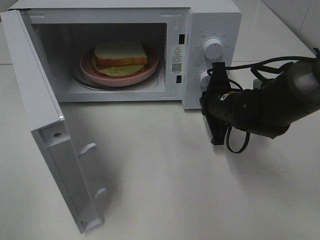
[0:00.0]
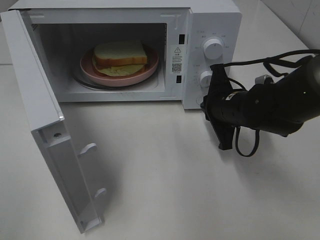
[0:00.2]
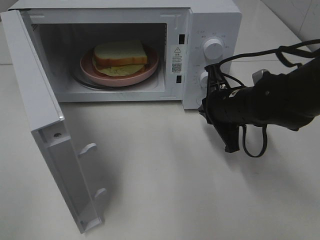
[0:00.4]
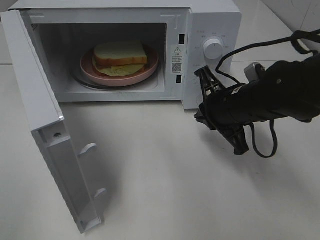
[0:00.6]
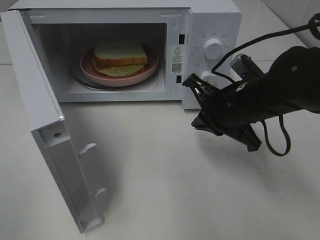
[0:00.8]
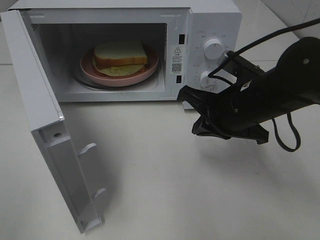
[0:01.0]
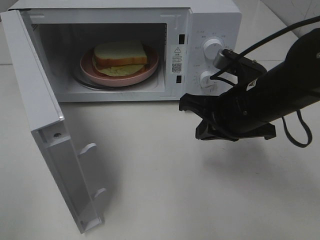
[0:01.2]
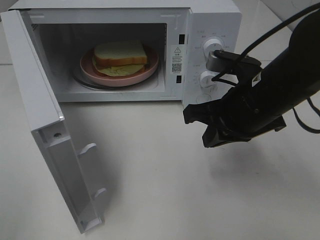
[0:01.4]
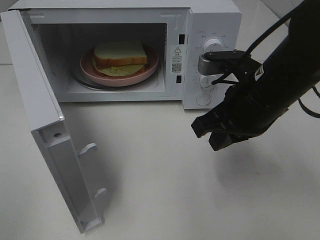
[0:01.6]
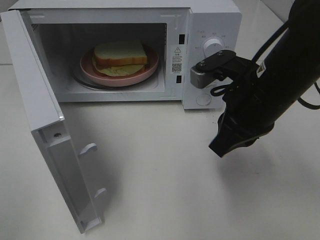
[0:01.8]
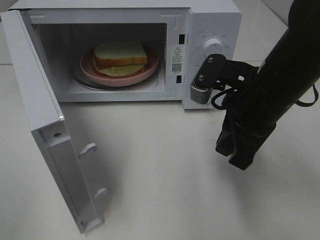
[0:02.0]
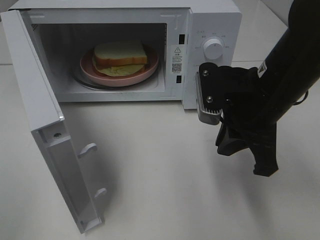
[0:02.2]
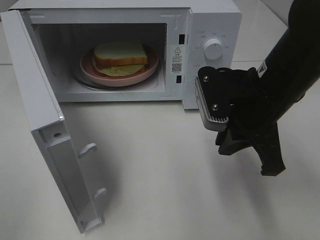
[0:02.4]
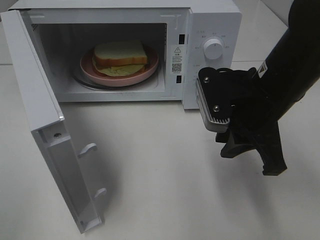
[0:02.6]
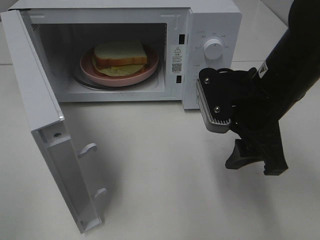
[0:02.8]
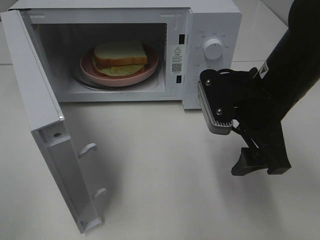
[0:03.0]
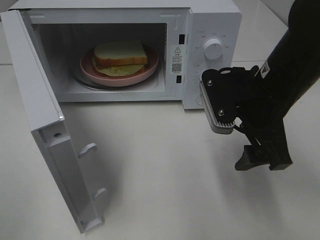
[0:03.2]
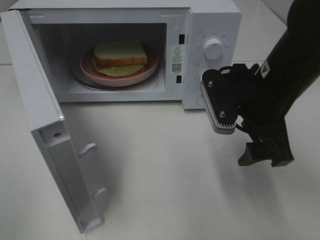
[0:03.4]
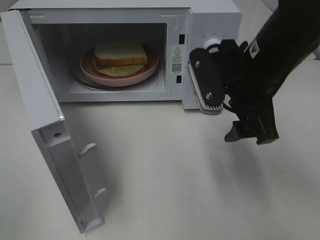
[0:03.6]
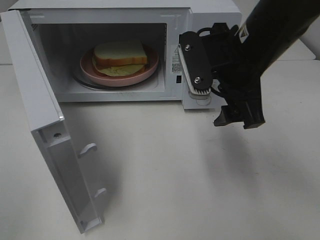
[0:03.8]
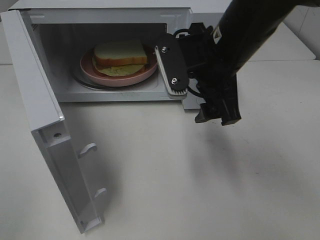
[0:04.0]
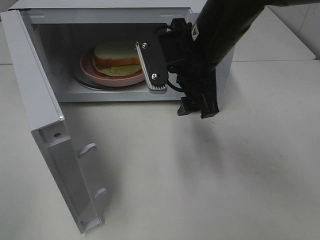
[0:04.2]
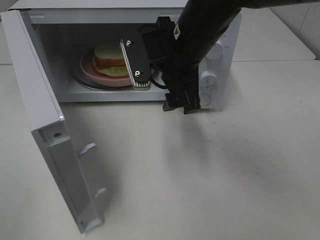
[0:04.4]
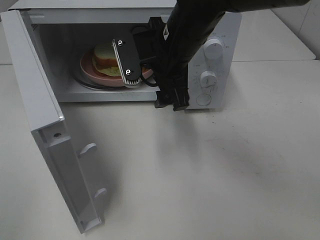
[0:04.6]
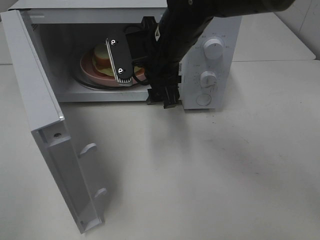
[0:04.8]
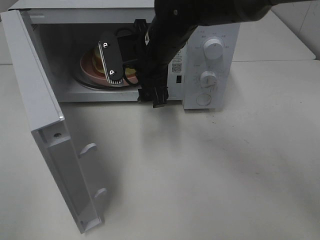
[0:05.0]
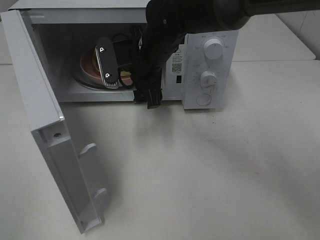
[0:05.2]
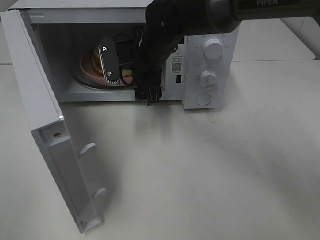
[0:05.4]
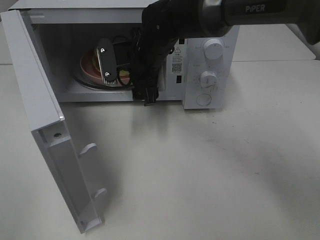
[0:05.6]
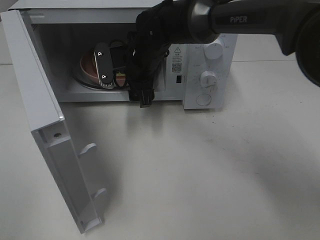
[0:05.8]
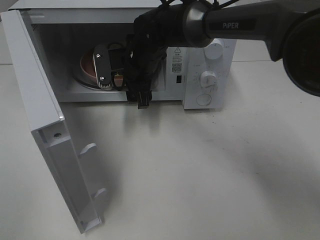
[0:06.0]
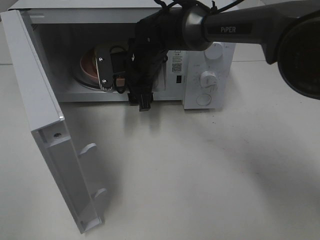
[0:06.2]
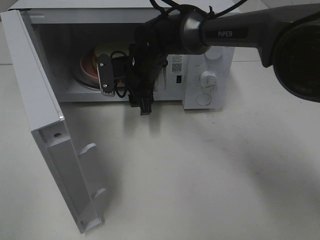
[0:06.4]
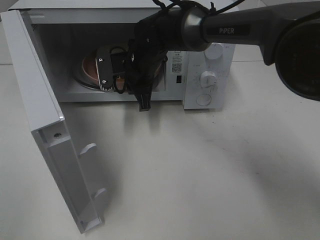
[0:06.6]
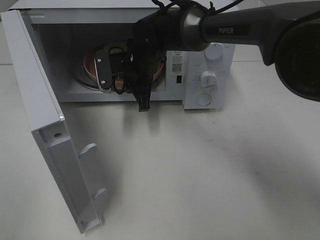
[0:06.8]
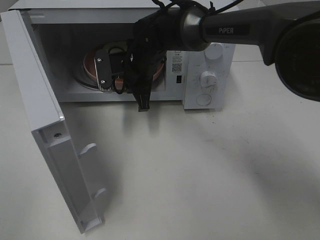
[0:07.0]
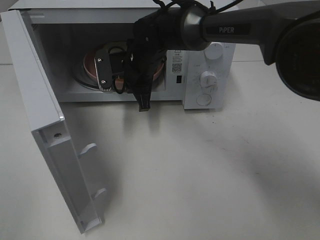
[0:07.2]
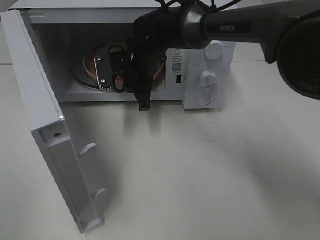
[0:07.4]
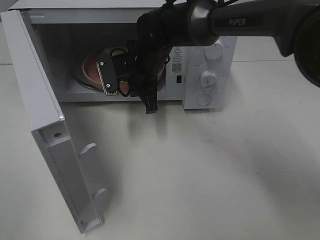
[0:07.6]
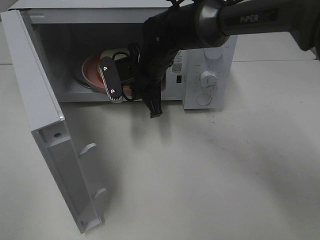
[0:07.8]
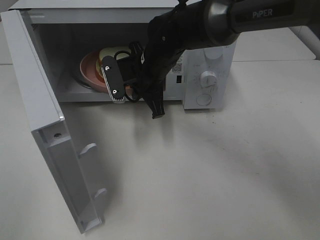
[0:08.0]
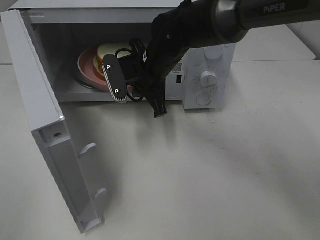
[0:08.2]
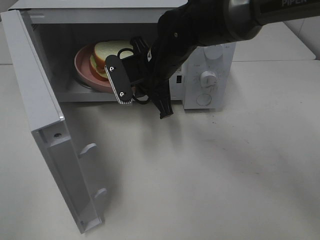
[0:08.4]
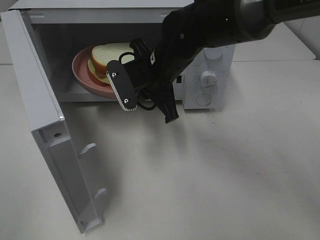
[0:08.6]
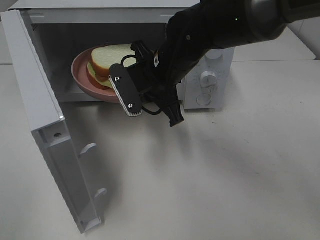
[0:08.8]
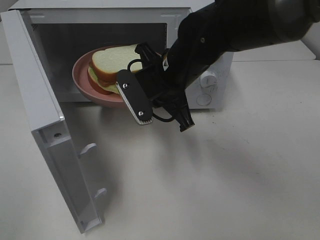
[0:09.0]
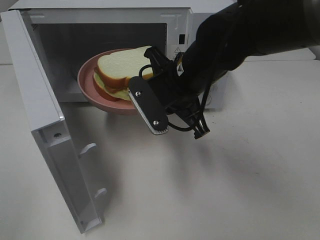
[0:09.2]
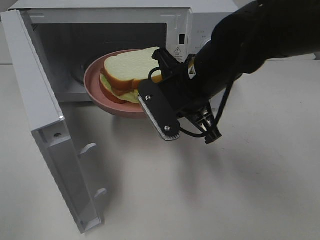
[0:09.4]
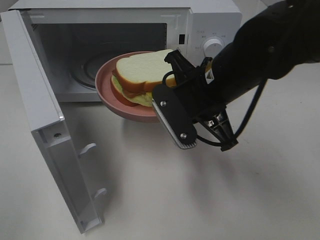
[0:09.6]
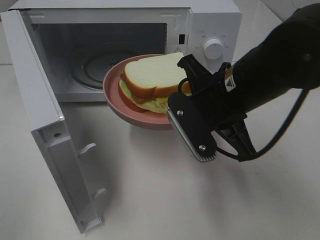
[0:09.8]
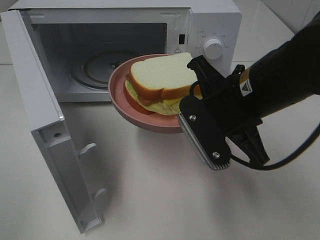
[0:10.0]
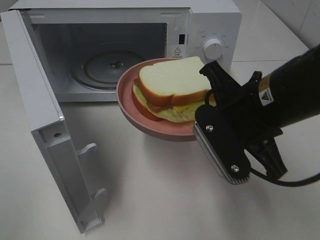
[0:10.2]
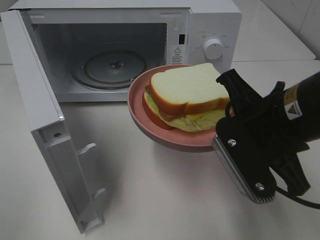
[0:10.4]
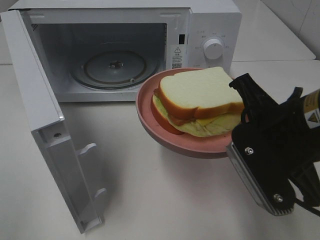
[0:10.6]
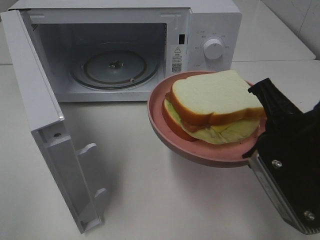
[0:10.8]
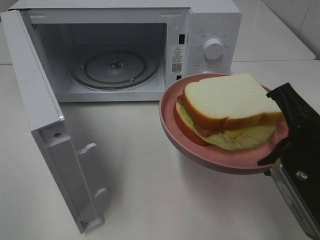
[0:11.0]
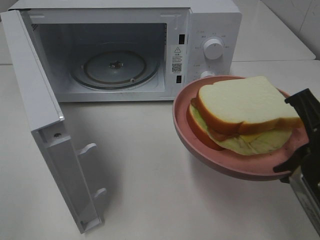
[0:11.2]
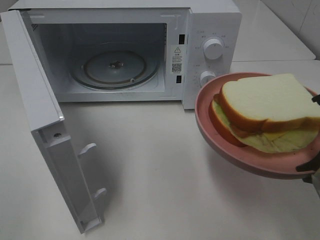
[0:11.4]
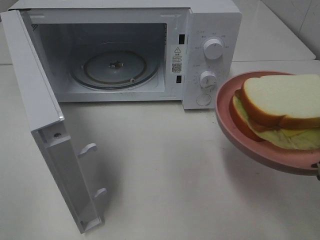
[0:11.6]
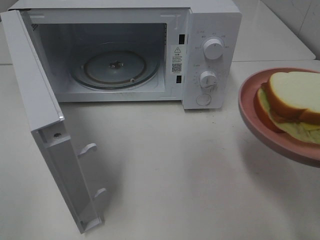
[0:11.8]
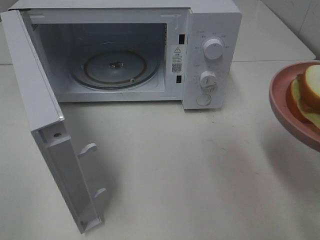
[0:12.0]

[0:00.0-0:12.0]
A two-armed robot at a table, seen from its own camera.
Task of the whole recording: Heat Sandwich.
Step, 0:00.0 to 0:07.2: Right hand: grab the plate with the sandwich.
0:00.0 to 0:01.6: The right gripper shifts some 15 cm upward and backward.
0:01.6 to 0:03.0: The right gripper opens up.
0:03.0 to 0:04.4: The right gripper goes about 15 cm to the left and forward.
0:04.4 to 0:06.0: The right gripper moves forward, downward and to the left, approximately 15 cm.
0:06.0 to 0:07.6: The right gripper closes its fingers.
0:07.6 to 0:09.0: The right gripper heads backward, covering about 10 cm.
0:09.0 to 0:10.4: The right gripper heads backward and to the right, covering approximately 15 cm.
0:10.4 to 0:12.0: The right gripper goes some 10 cm to the right and backward.

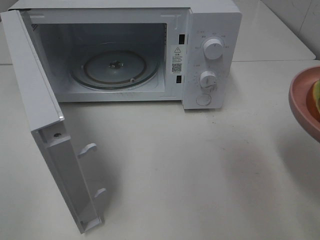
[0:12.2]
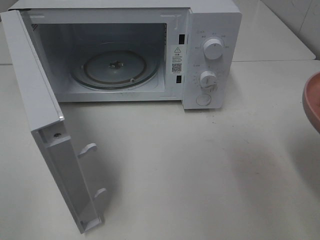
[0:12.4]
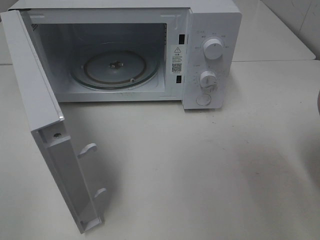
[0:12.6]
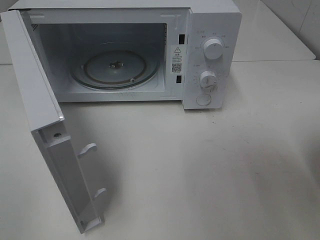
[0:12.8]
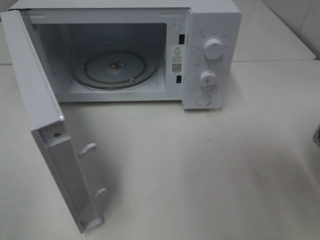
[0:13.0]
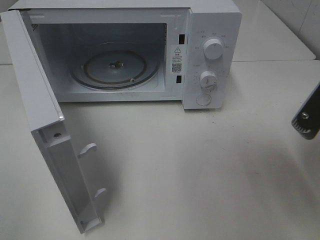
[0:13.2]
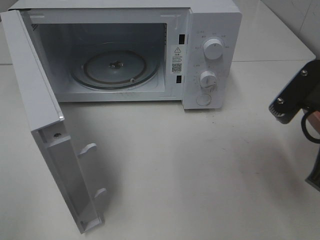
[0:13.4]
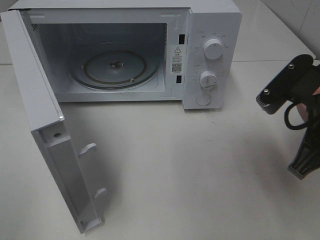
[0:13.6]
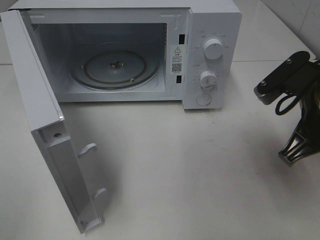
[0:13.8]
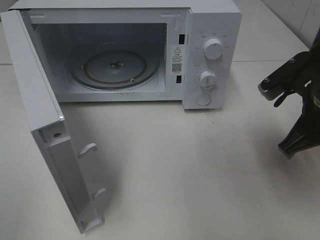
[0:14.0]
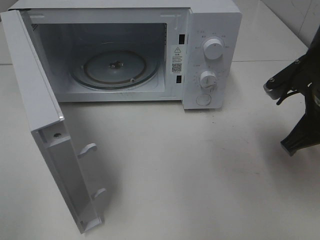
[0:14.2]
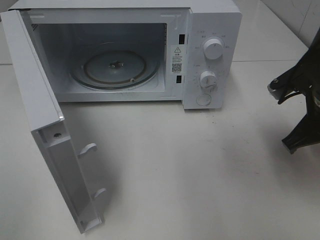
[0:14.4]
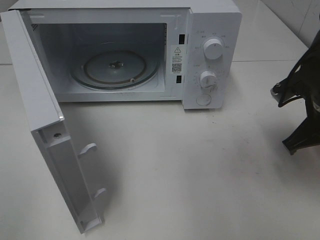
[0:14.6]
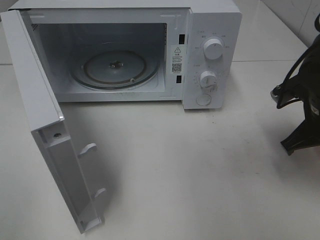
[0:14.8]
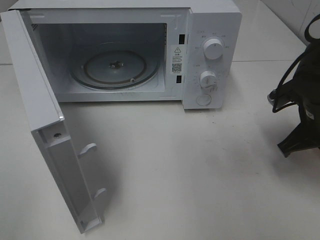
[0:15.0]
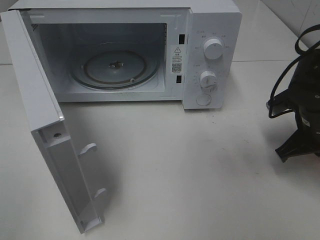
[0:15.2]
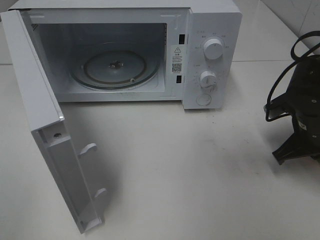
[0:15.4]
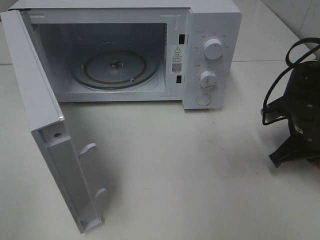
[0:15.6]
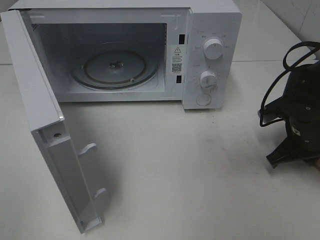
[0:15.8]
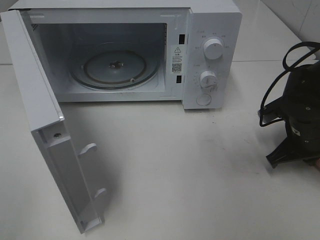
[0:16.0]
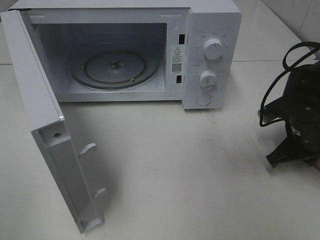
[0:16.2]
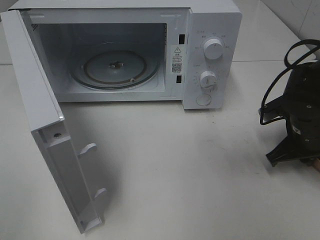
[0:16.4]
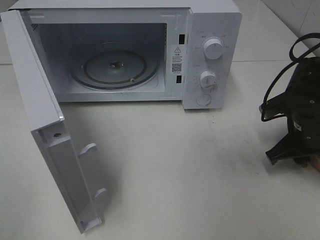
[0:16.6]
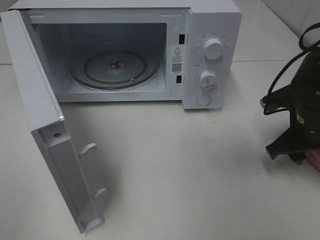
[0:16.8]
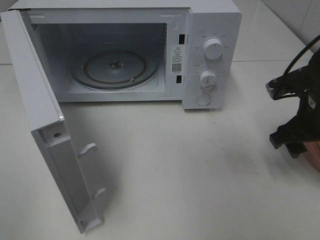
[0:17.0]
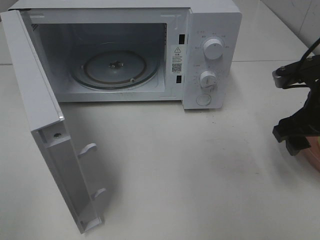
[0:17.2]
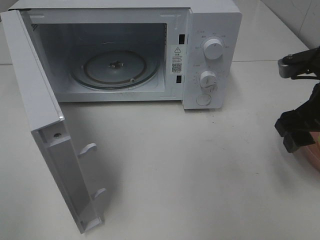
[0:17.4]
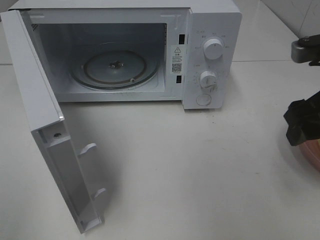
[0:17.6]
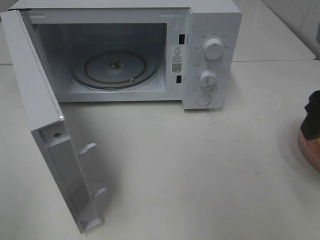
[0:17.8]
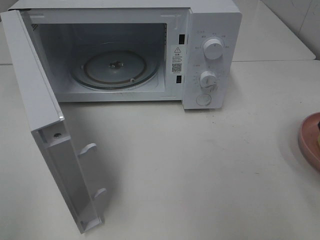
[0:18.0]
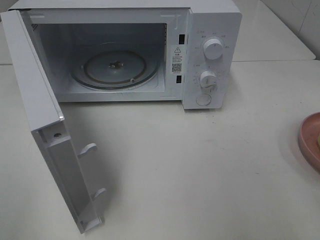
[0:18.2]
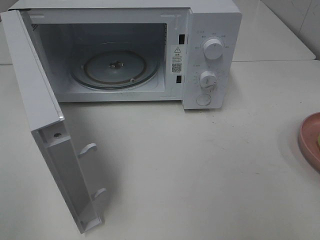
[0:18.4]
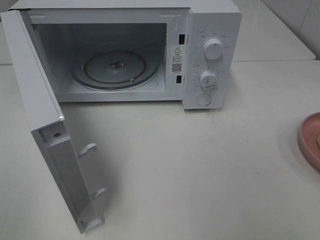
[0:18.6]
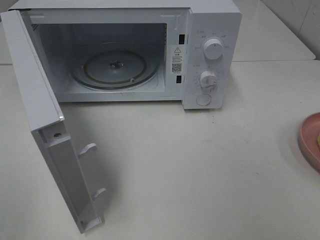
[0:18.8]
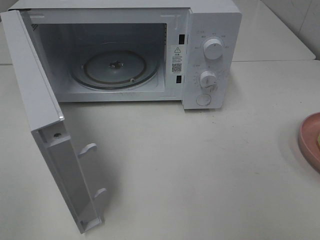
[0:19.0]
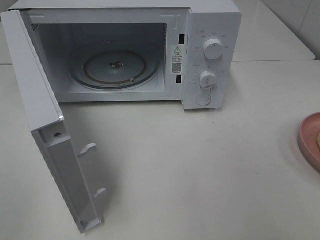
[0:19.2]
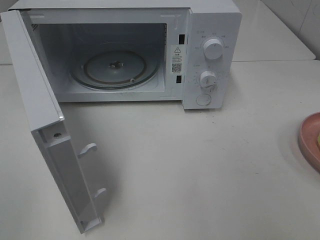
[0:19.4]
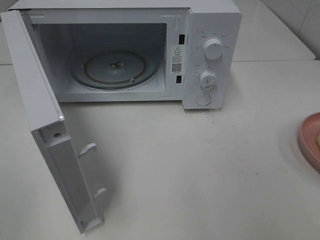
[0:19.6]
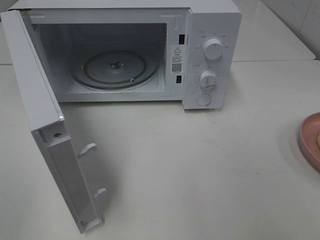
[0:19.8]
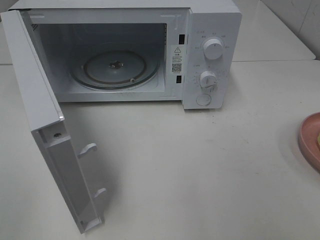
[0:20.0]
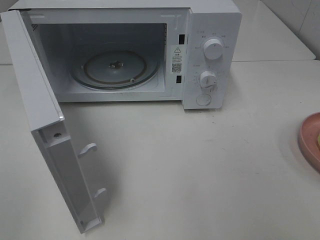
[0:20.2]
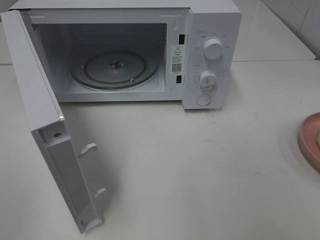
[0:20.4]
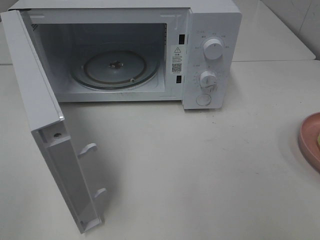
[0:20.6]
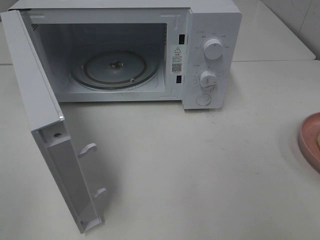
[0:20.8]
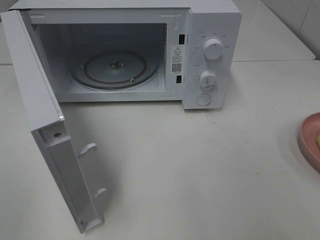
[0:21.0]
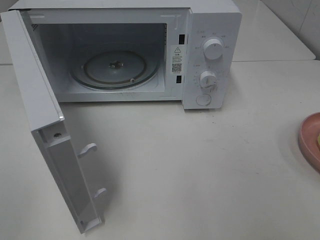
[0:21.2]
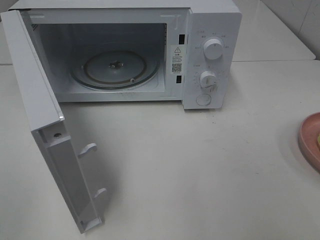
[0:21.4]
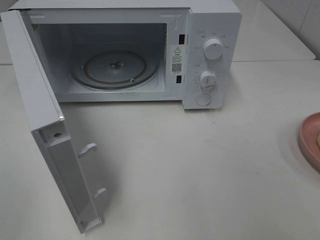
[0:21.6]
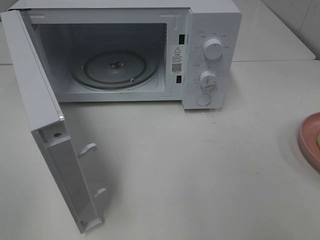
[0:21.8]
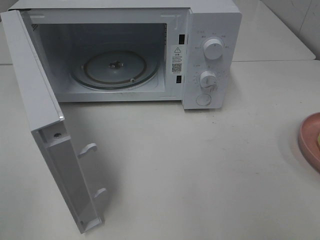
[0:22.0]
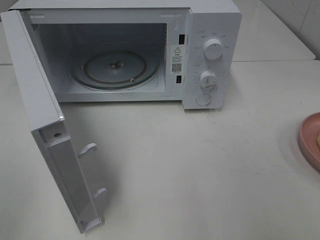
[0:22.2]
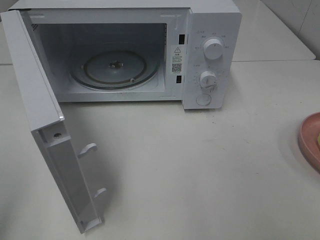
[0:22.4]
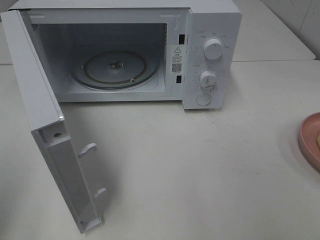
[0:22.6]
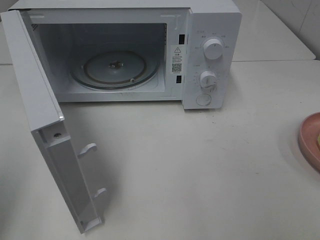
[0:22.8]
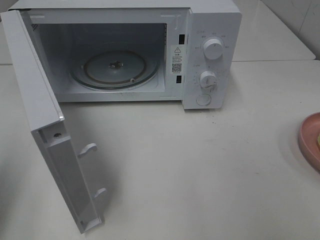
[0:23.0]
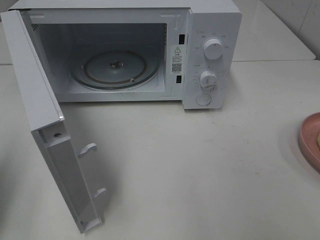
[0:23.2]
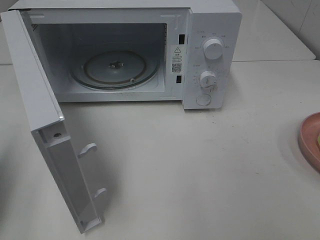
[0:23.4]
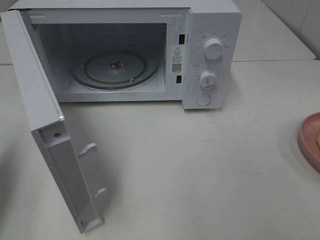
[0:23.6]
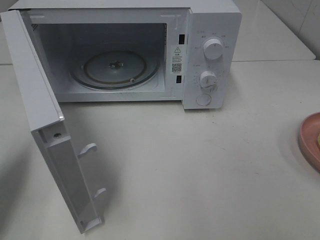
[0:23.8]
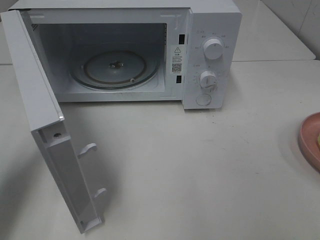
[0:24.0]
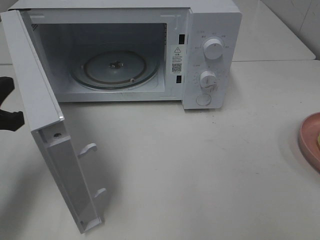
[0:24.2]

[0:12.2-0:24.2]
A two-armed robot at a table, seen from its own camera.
Task of the whole recording: Heat Sandwich.
Step, 0:12.2 to 0:17.4: Right hand: place the plate on the table.
0:12.2 to 0:13.8: The right gripper travels forward by roughly 10 cm.
0:13.8 to 0:15.2: The right gripper is displaced downward, forward and to the right by approximately 10 cm.
0:15.2 to 0:16.6: The right gripper opens up.
0:16.6 to 0:18.2: The right gripper travels upward and backward by approximately 25 cm.
0:19.8 to 0:21.2: Both grippers stay put.
0:22.6 to 0:24.2: The left gripper heads forward, downward and to the right, covering roughly 20 cm.
